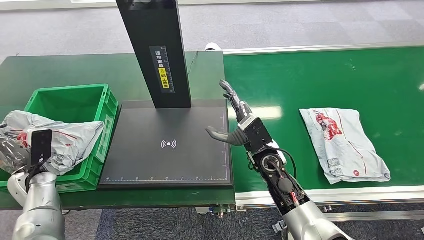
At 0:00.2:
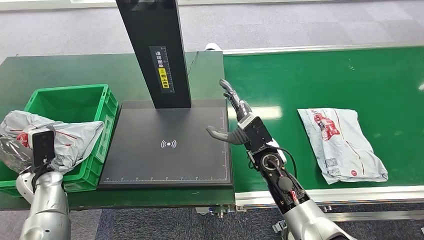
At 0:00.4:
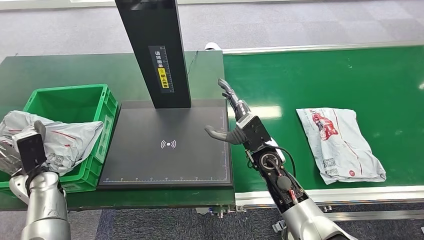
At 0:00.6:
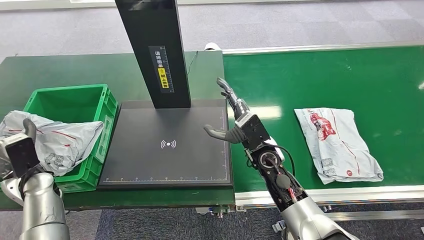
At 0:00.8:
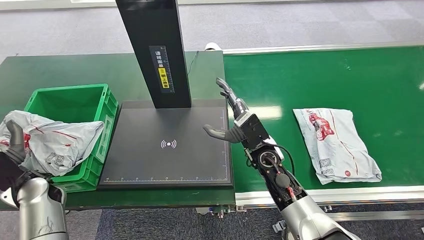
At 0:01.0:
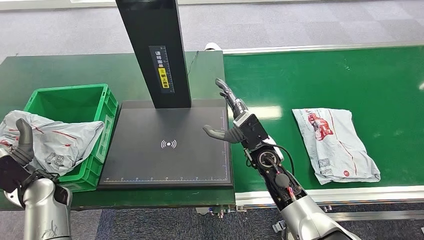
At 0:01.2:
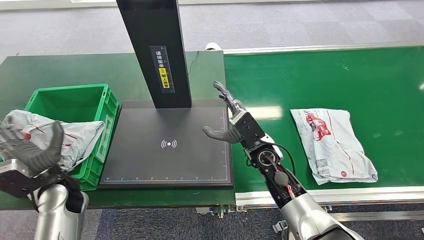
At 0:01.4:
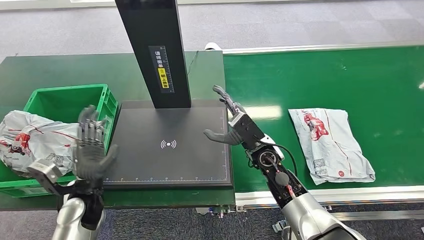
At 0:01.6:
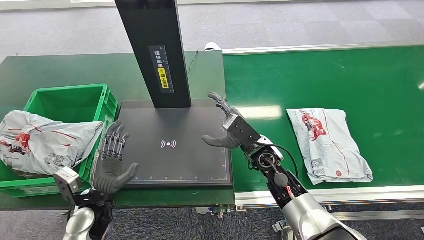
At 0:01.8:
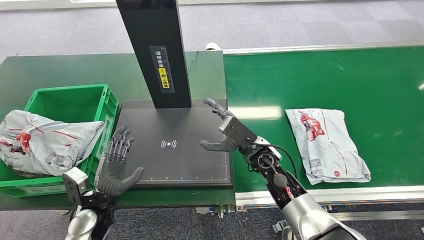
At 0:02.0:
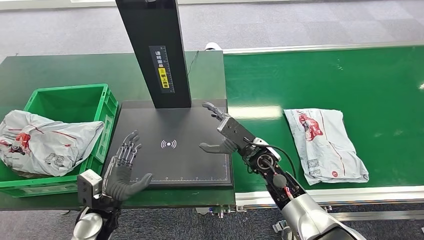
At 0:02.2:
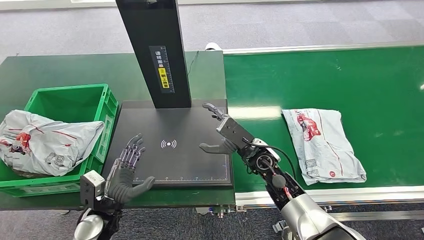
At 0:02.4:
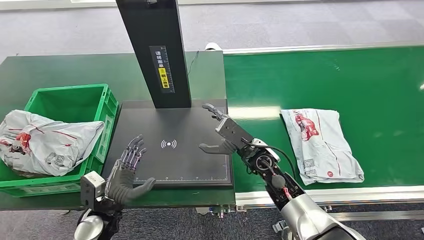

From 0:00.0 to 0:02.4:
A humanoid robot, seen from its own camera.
Step, from 0:00.0 to 0:02.2: Place the package into the parcel locker.
From 0:00.0 to 0:01.2: The left hand heads to the right and upward, covering about 10 cm.
From 0:01.2 to 0:02.4: The left hand heads to the right, downward and backward, covering some 15 cm.
